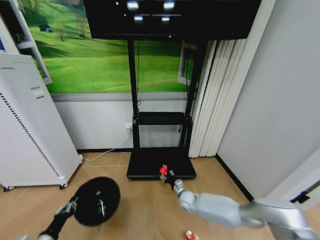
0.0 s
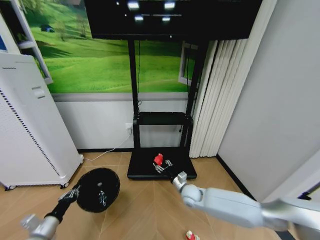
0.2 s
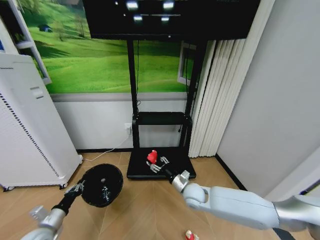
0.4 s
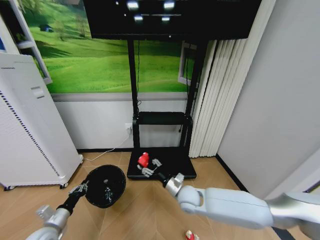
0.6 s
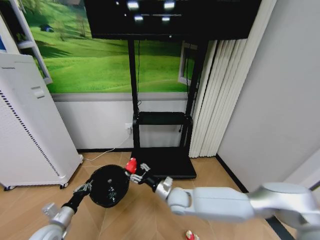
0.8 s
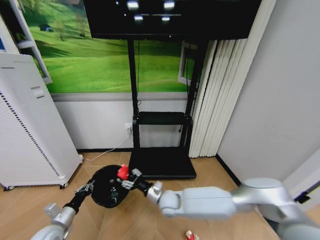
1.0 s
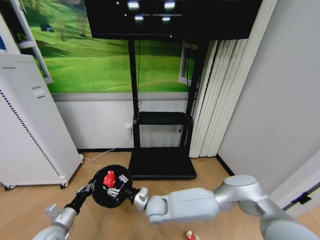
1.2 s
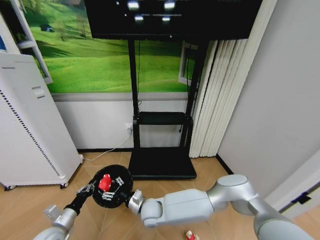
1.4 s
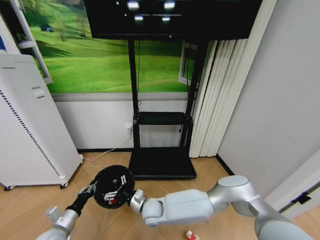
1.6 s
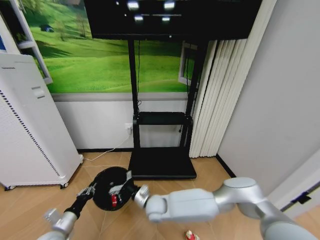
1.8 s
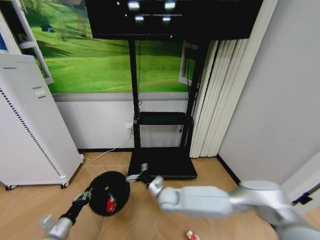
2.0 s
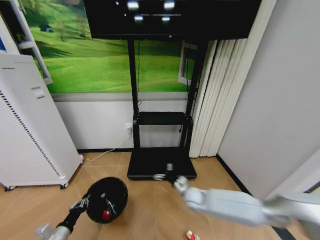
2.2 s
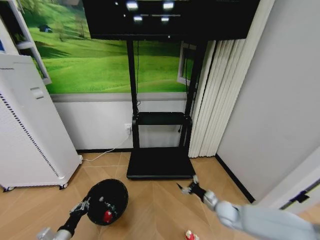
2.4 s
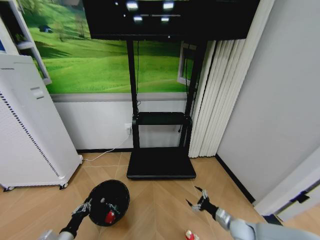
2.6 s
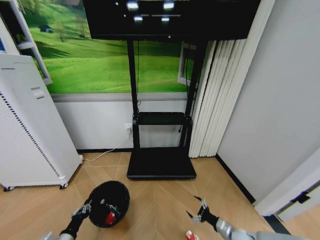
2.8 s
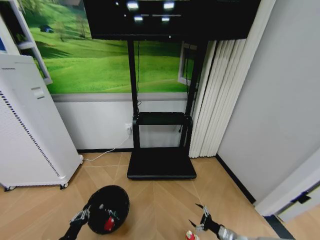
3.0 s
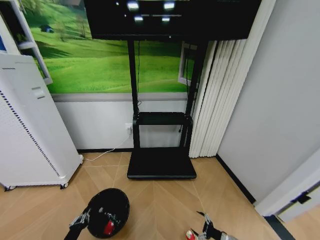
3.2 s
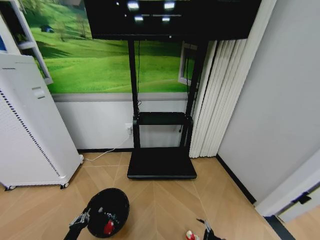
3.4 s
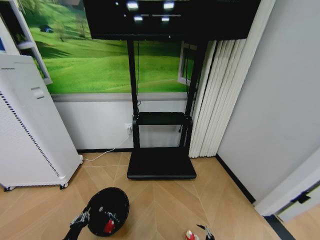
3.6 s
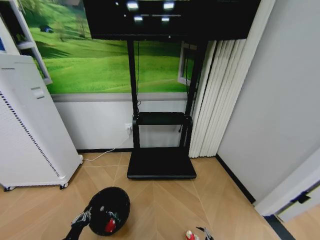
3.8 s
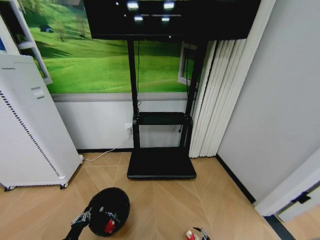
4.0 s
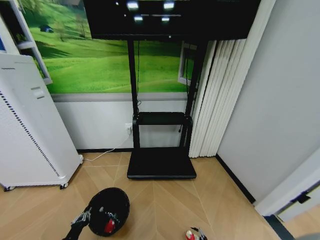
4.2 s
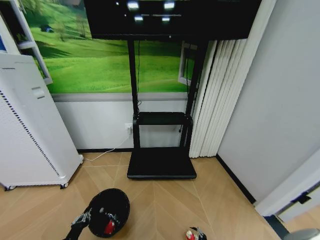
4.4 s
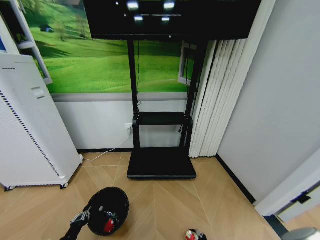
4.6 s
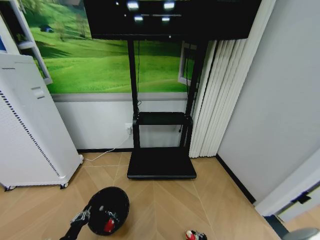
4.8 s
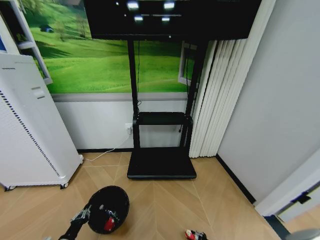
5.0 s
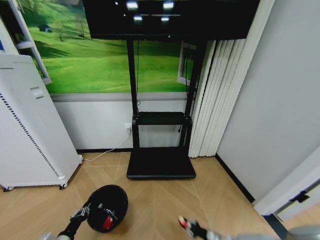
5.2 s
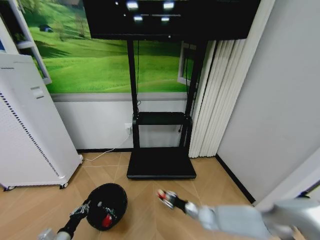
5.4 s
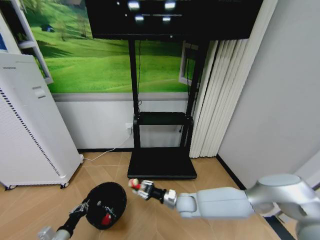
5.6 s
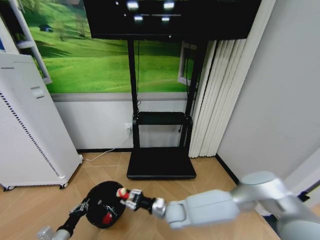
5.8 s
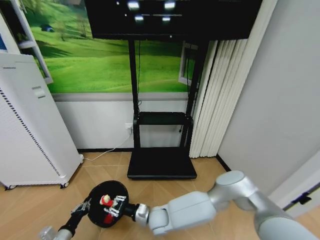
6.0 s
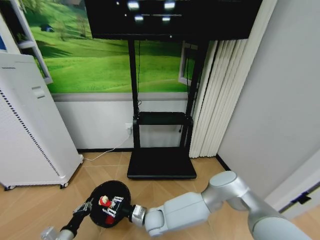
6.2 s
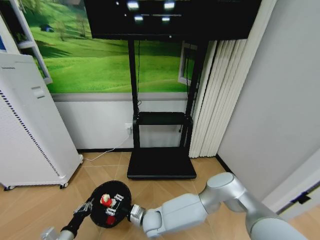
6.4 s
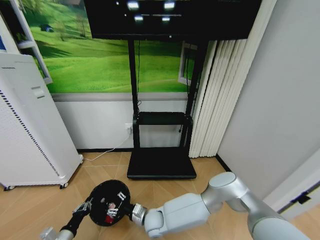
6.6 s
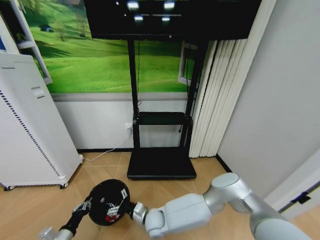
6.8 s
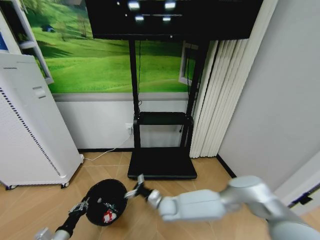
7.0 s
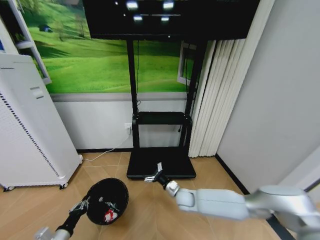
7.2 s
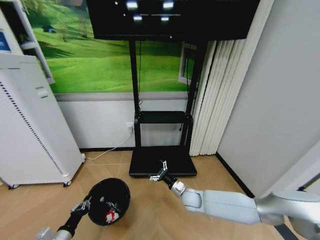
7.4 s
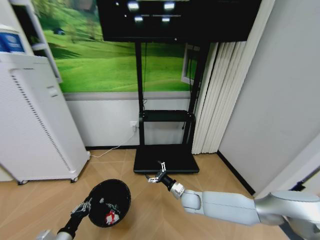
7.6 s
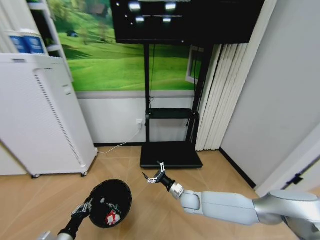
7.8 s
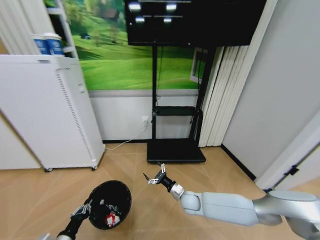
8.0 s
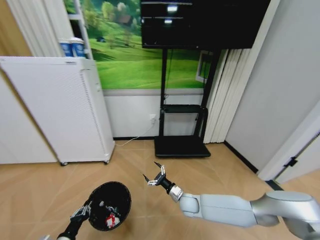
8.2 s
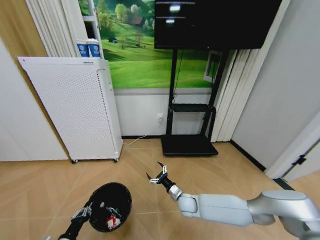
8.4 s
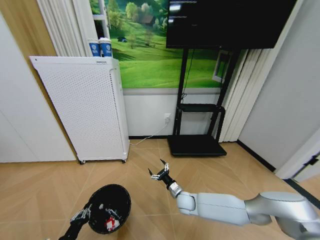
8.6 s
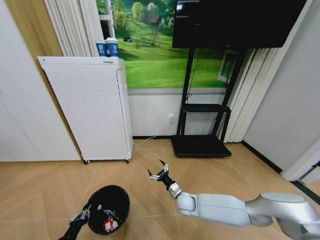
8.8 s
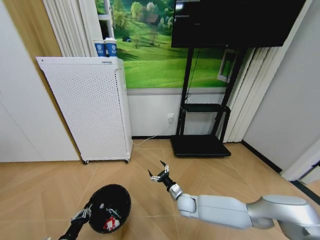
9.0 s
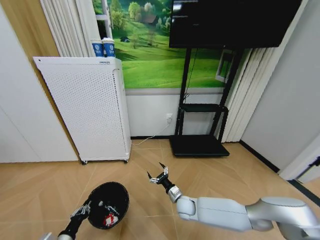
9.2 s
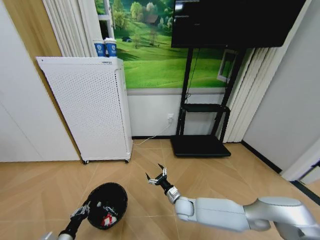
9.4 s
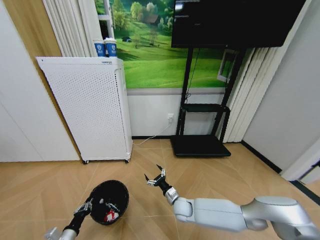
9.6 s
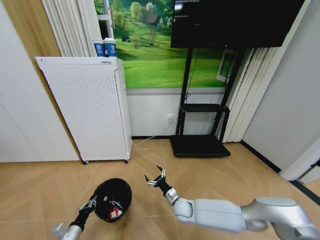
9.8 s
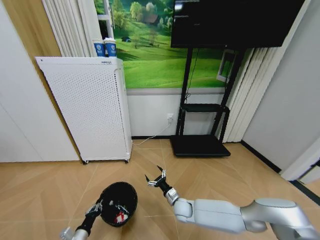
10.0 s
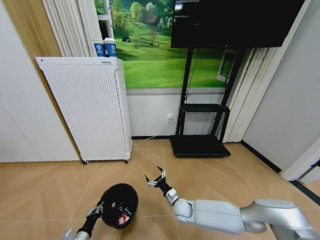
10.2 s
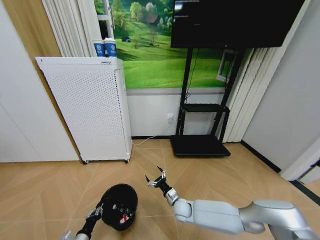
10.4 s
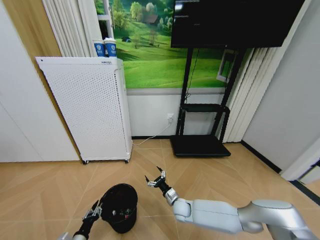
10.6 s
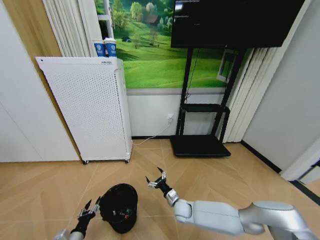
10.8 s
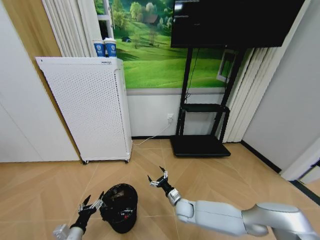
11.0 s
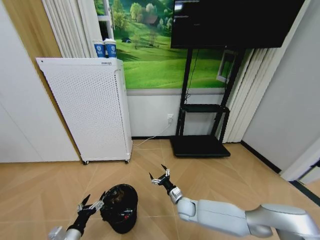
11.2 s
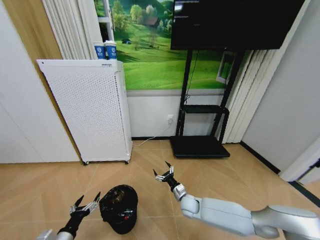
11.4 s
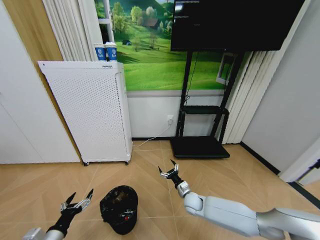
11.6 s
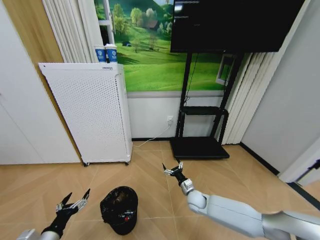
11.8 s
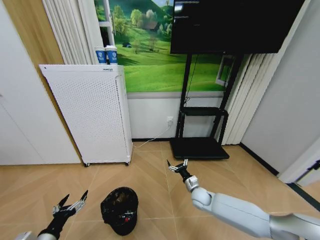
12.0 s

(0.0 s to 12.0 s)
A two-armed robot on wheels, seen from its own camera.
Task of the whole recording: Pick up the trash bin and place the garbage on the floor into it.
0.0 s - 1.6 s: The right gripper shifts some 20 cm to the left and backward, and opens up. The left gripper shifts approximately 5 cm forward.
1.6 s - 3.0 s: The right gripper is displaced to the right by approximately 40 cm; the left gripper goes roughly 10 cm backward and downward.
3.0 s - 4.4 s: The right gripper moves downward, some 10 cm.
4.4 s - 6.0 s: The right gripper is displaced to the left and upward by some 40 cm, and closes its fingers.
6.0 s - 7.6 s: The right gripper goes about 15 cm to the right and forward, and opens its fingers.
9.0 s - 10.4 s: The left gripper shifts some 5 cm downward.
10.4 s - 12.0 s: The right gripper goes some 10 cm to the right, while the left gripper shifts some 15 cm upward, and opens.

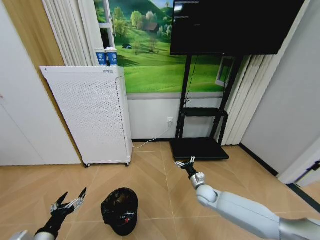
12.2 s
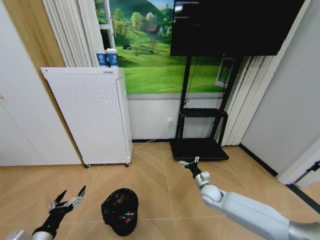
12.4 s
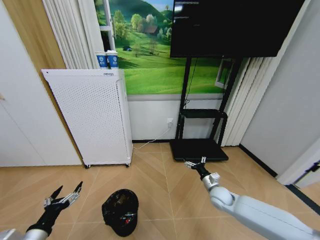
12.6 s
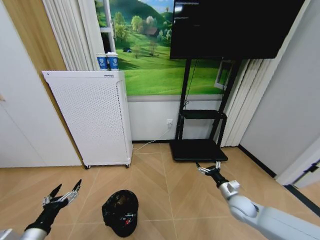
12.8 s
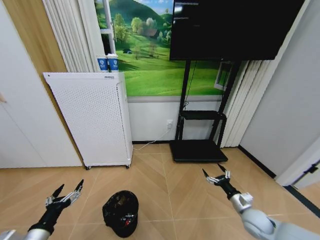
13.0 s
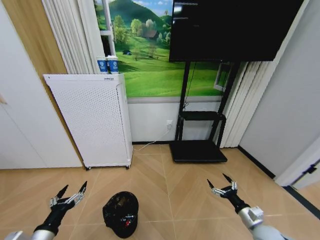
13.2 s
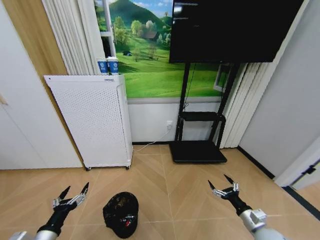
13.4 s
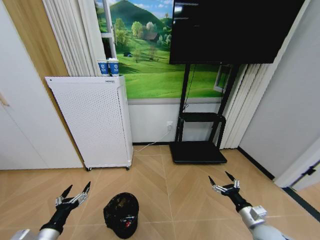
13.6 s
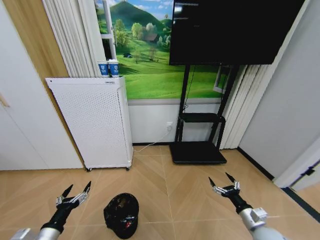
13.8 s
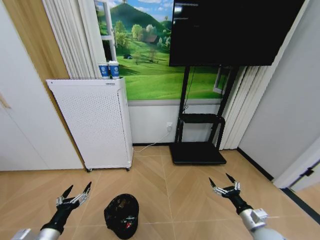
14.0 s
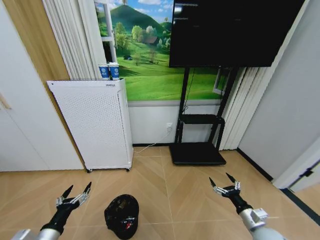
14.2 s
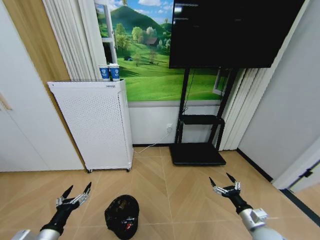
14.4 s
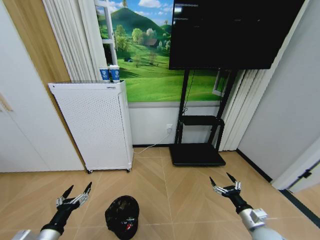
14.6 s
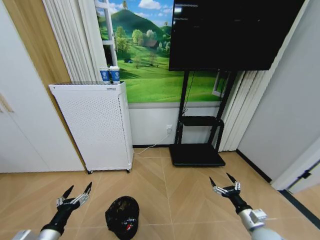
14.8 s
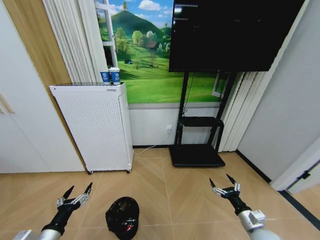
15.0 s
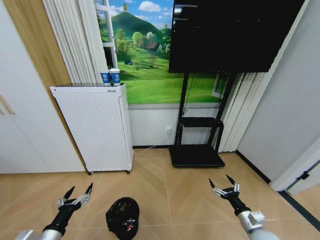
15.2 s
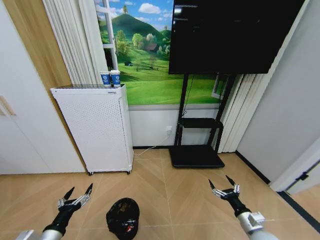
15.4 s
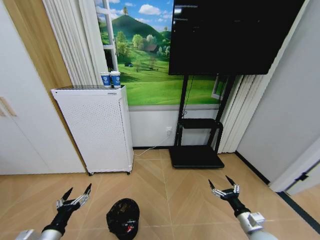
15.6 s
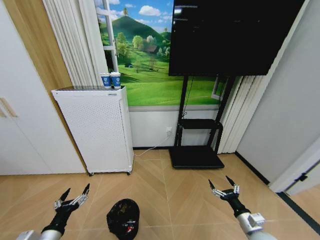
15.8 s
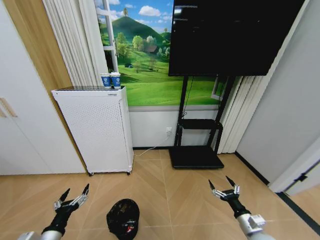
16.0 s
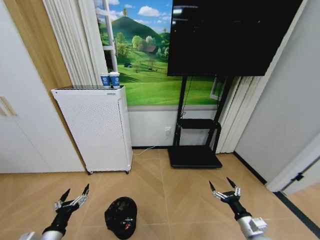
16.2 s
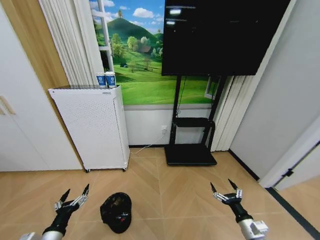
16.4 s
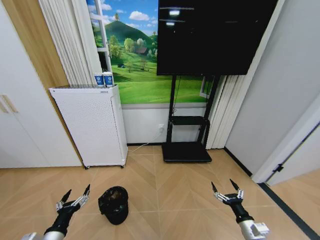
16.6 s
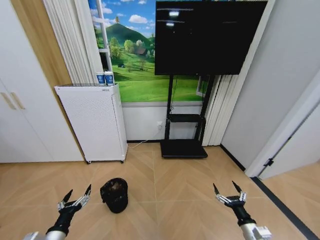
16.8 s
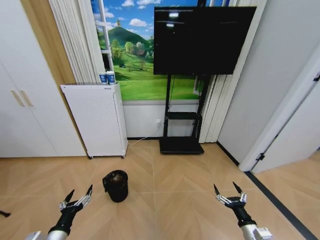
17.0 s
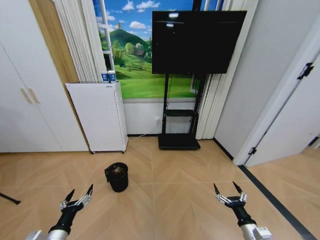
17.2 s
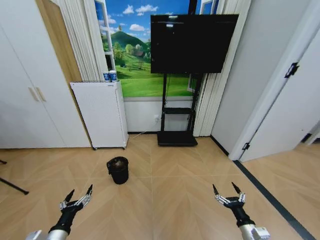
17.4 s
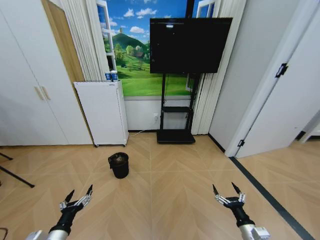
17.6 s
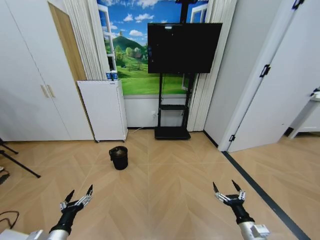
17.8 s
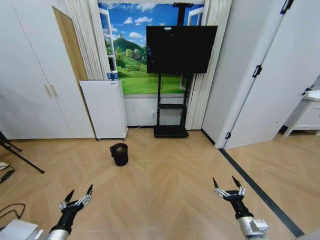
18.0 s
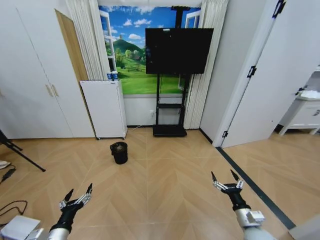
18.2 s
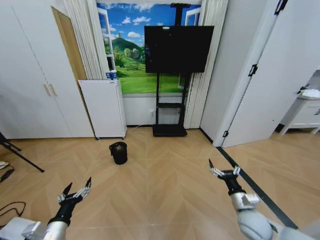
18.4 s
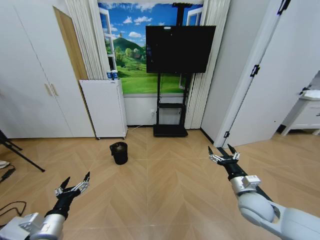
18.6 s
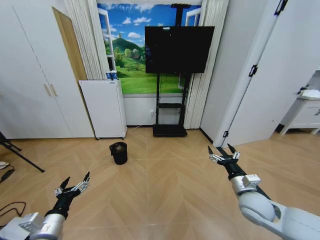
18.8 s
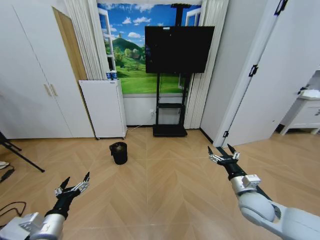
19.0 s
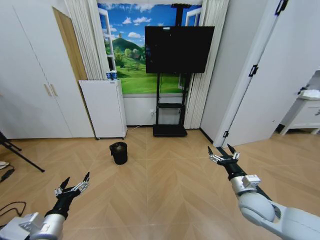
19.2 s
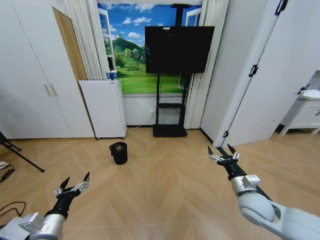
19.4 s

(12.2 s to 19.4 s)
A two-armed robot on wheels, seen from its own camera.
Task of the whole recording: Pick up the trash bin and place the garbage on the floor into it.
12.2 s - 13.6 s: The right gripper moves backward and to the right, some 25 cm.
13.6 s - 15.0 s: The grippers stay close to where they were, moving slightly.
18.0 s - 19.4 s: The right gripper moves upward and forward, about 15 cm. The left gripper travels upward by approximately 5 cm.
